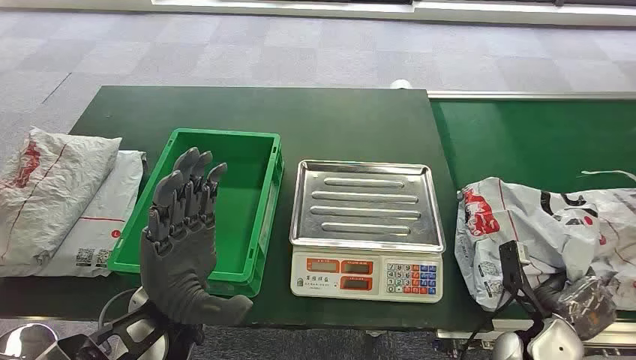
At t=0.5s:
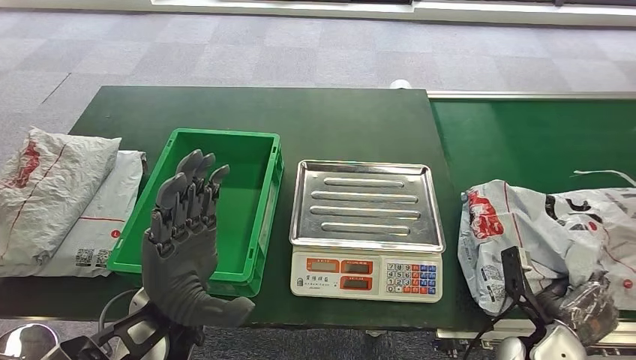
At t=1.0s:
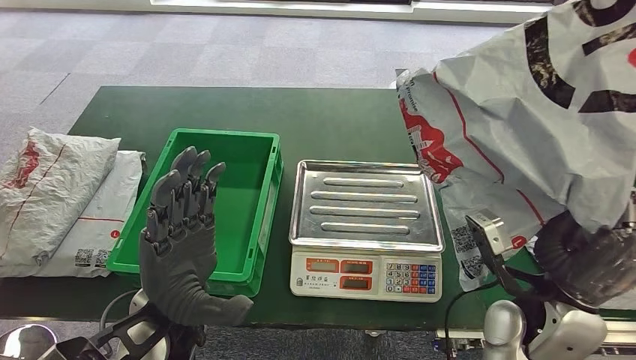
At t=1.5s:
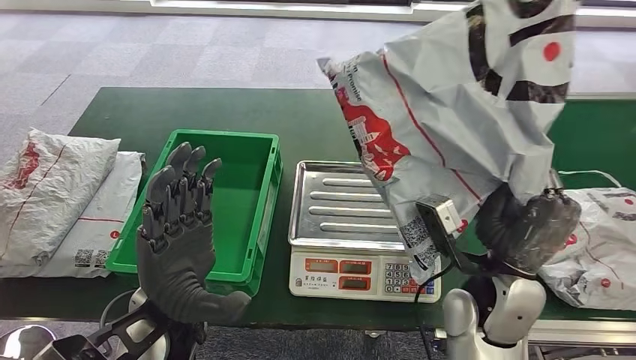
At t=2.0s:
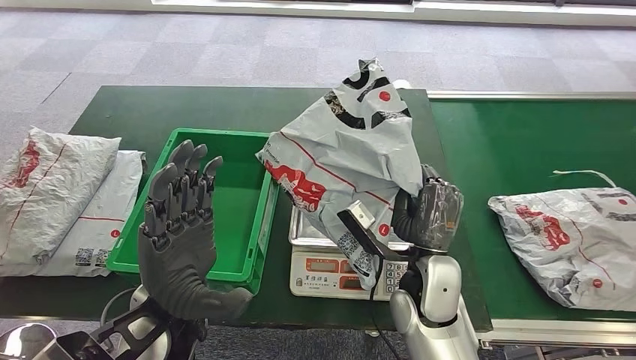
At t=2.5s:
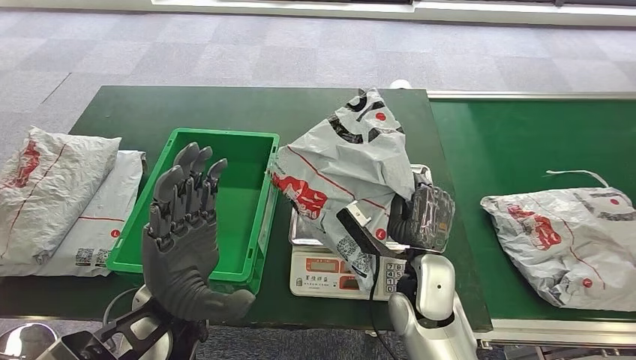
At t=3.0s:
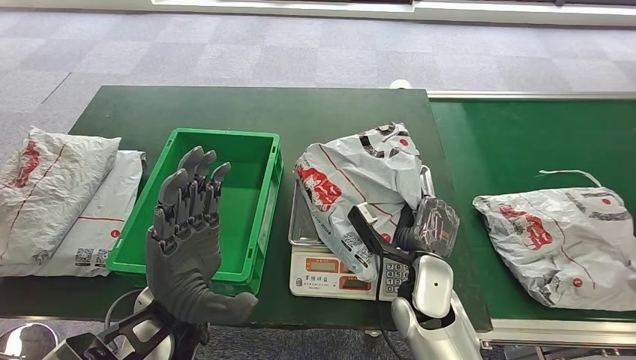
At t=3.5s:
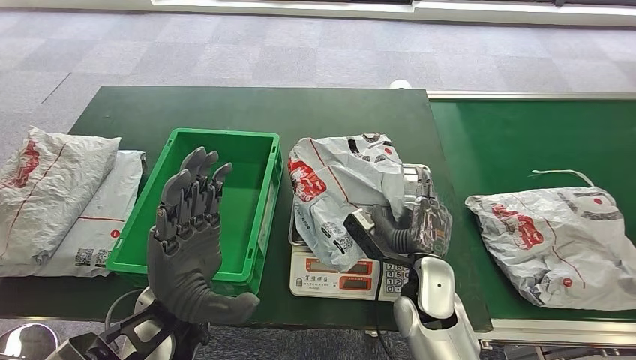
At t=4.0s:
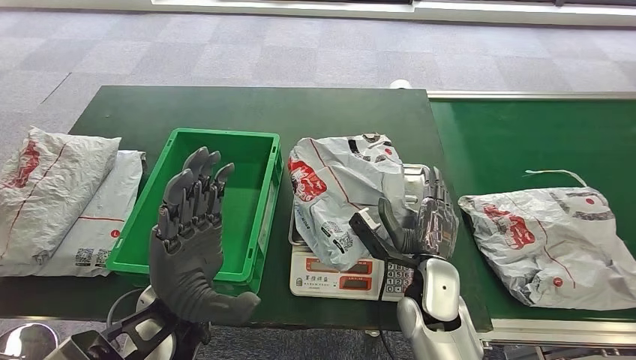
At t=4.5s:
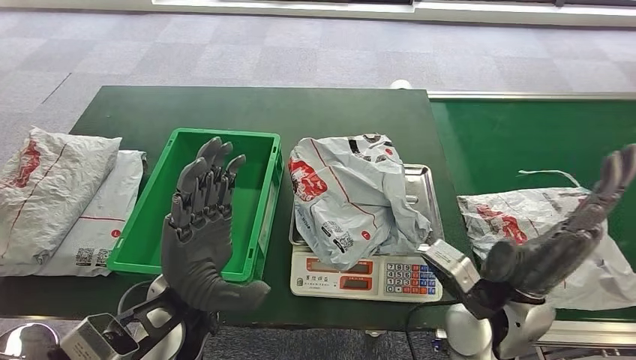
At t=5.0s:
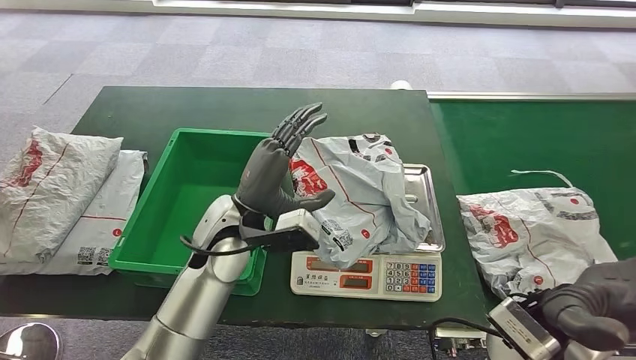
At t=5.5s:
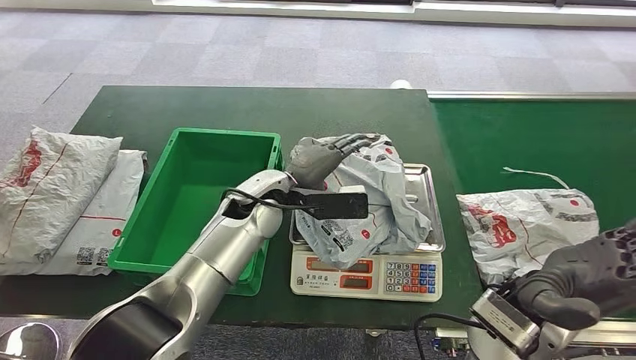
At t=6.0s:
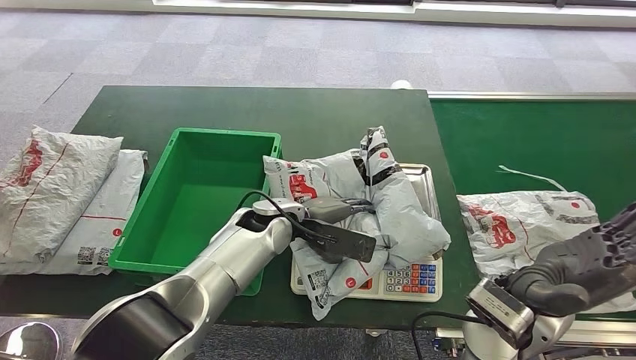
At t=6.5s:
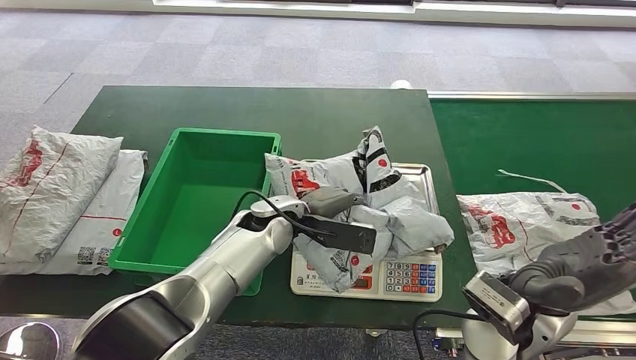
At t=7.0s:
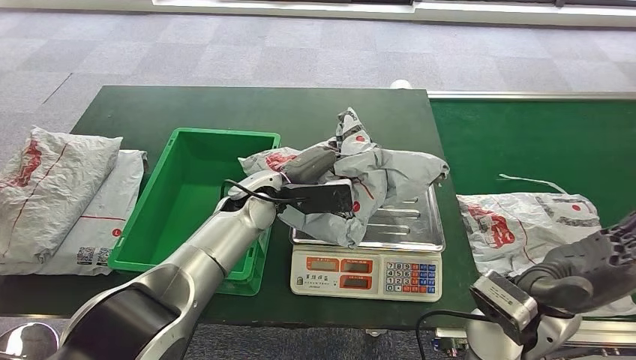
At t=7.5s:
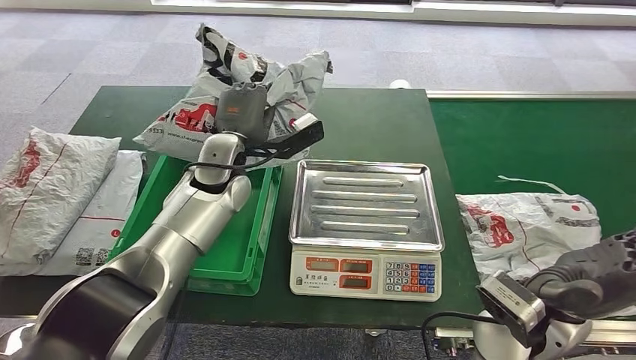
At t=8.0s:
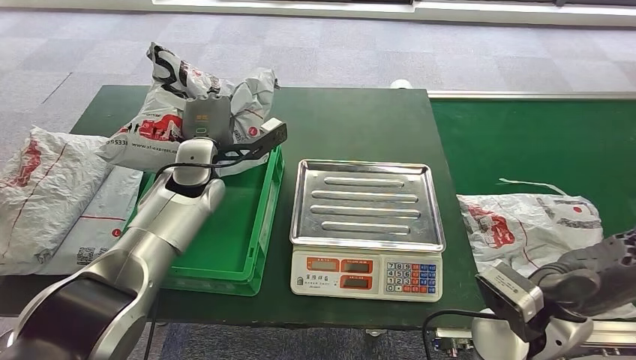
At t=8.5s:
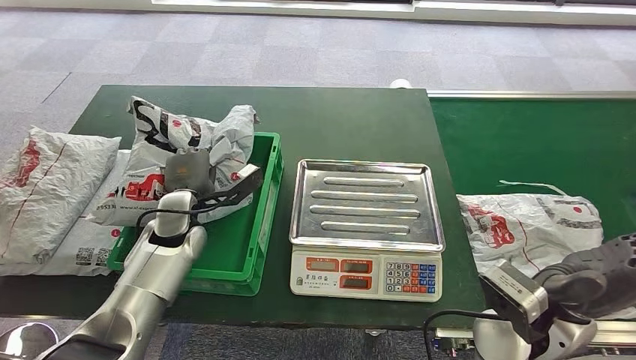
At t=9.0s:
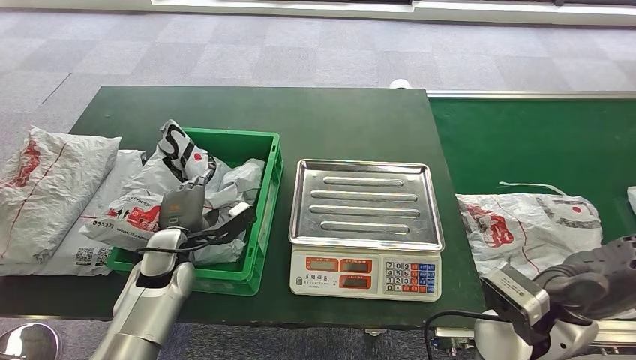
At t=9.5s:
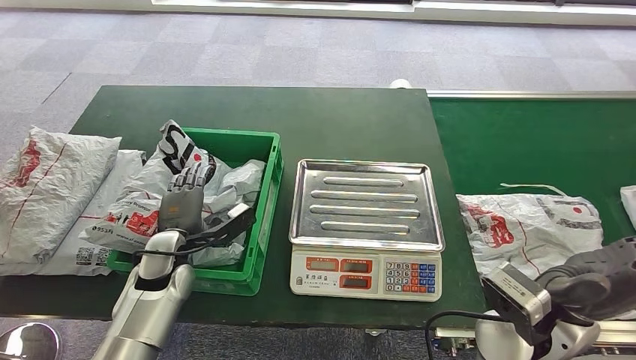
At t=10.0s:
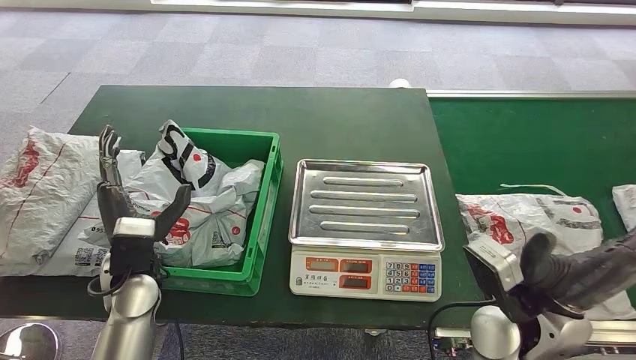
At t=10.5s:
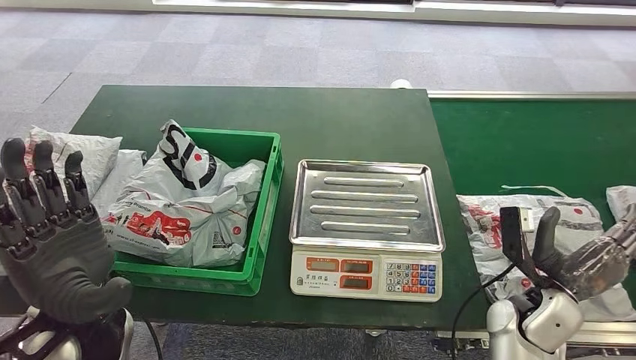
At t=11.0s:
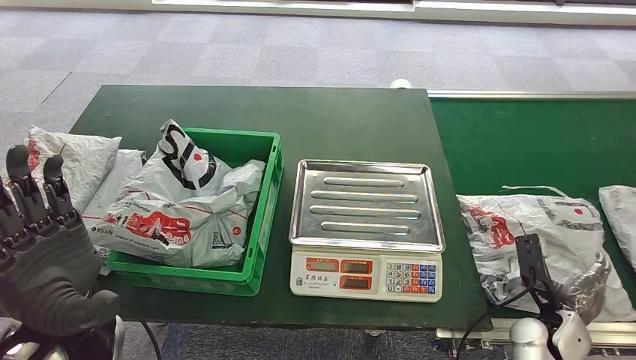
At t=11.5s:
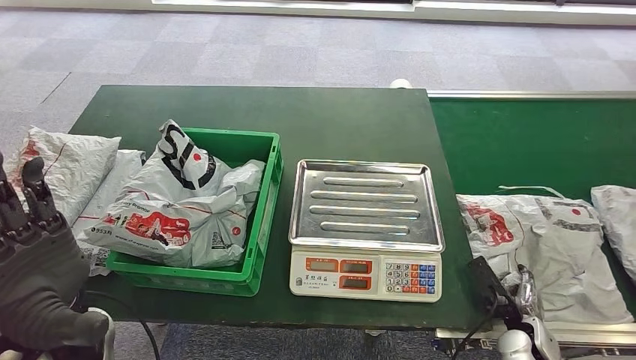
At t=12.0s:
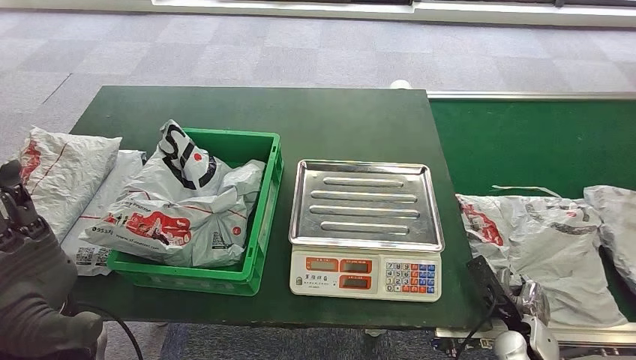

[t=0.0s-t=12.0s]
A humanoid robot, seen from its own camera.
Step, t=0.0s to t=2.0s: Take the parcel off the conveyor belt.
Step, t=2.5s to t=4.5s: Place the parcel onto the inbound machine.
Step, t=6.5s to t=7.5s: Pick up the parcel from the inbound machine.
Step, t=8.0s to t=10.0s: Put the parcel inside the courier box.

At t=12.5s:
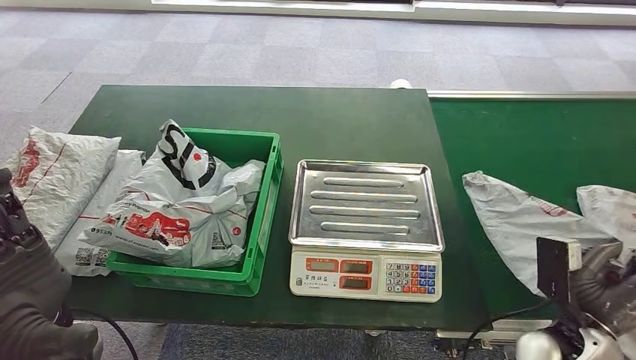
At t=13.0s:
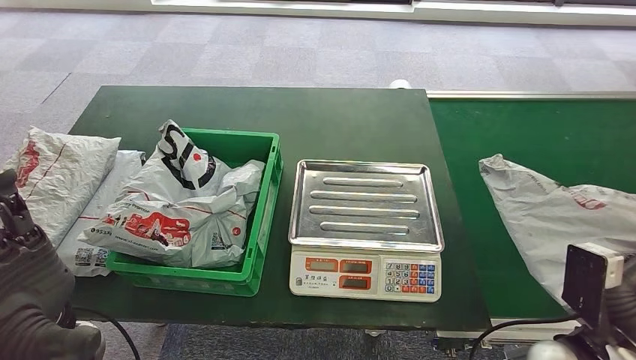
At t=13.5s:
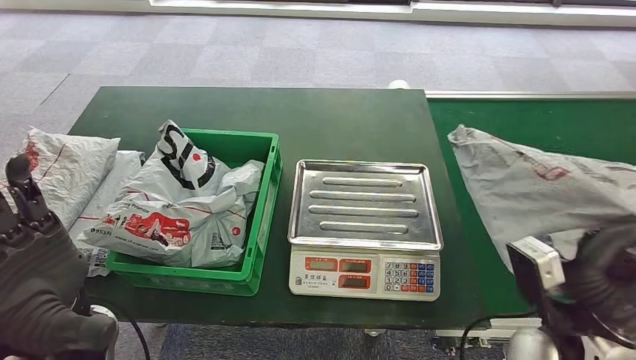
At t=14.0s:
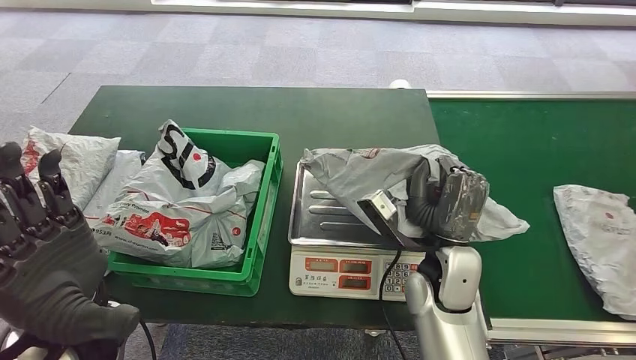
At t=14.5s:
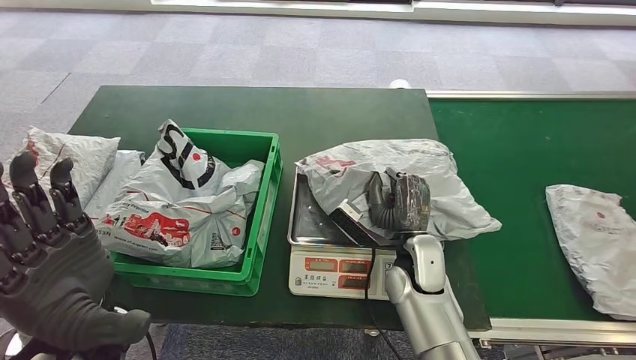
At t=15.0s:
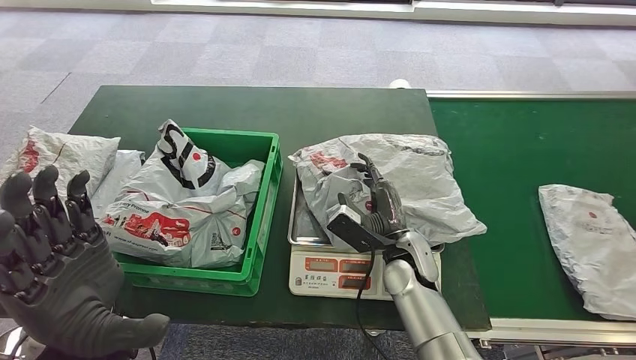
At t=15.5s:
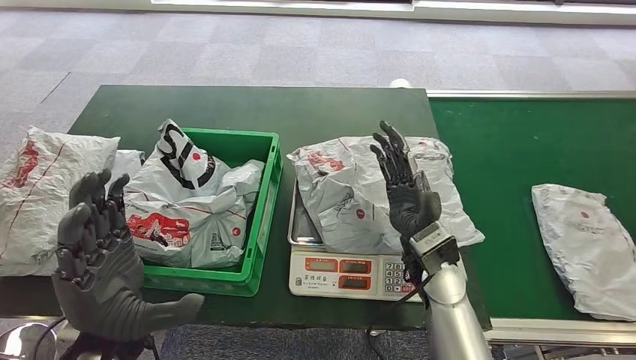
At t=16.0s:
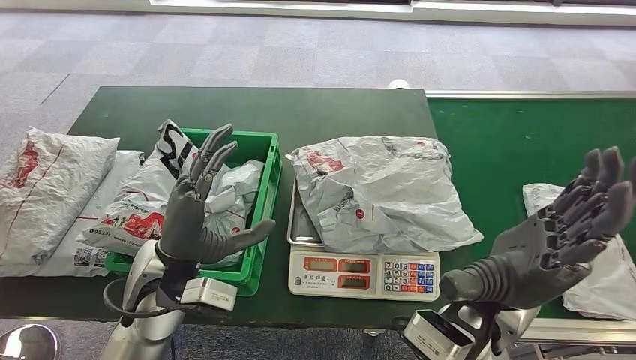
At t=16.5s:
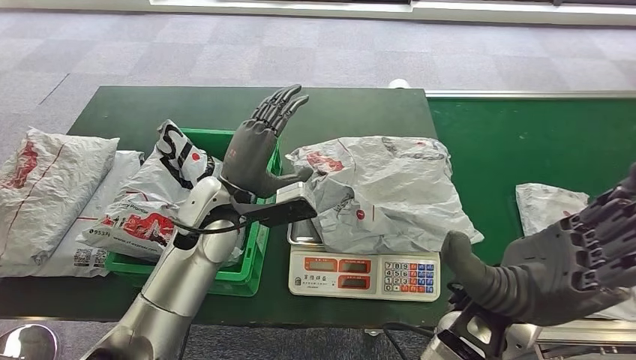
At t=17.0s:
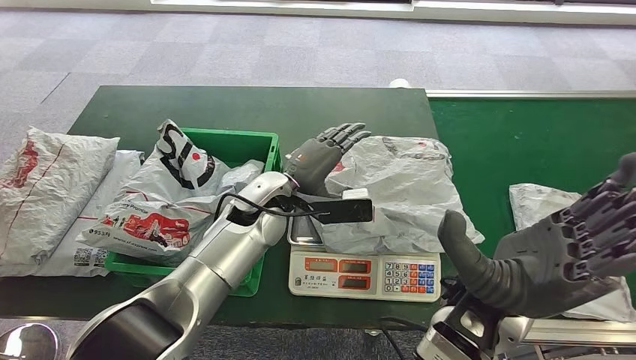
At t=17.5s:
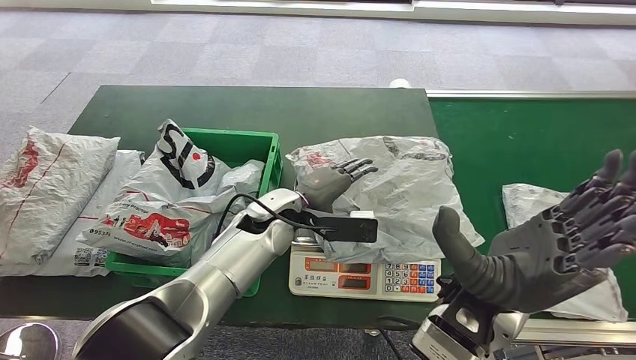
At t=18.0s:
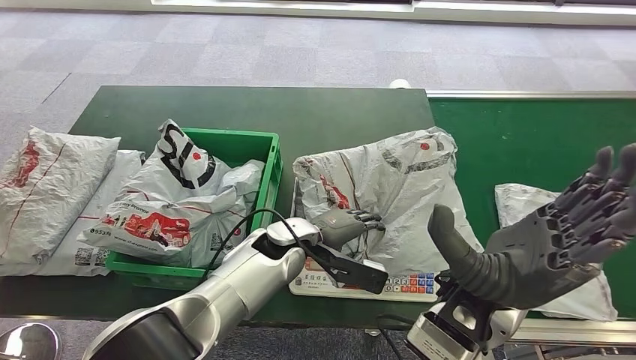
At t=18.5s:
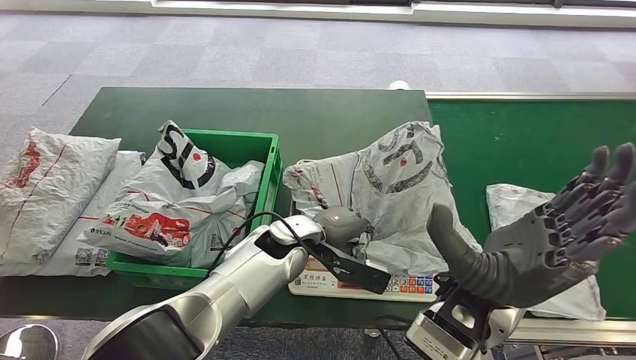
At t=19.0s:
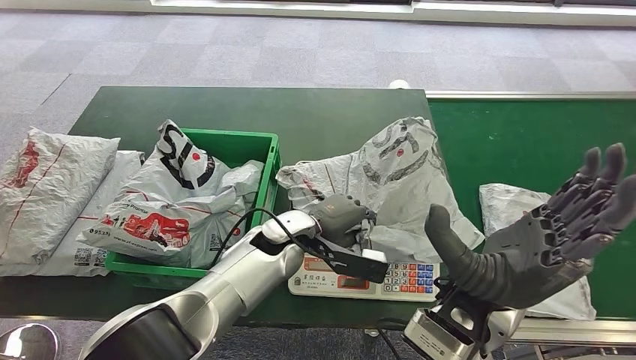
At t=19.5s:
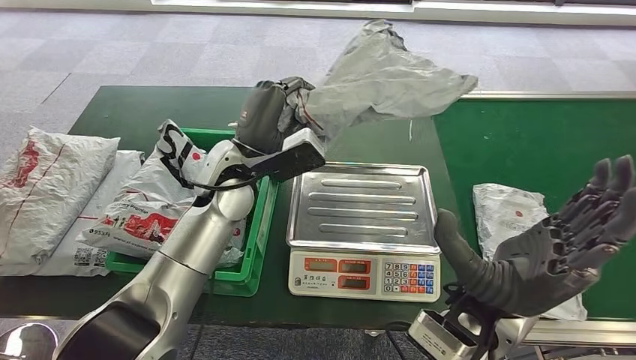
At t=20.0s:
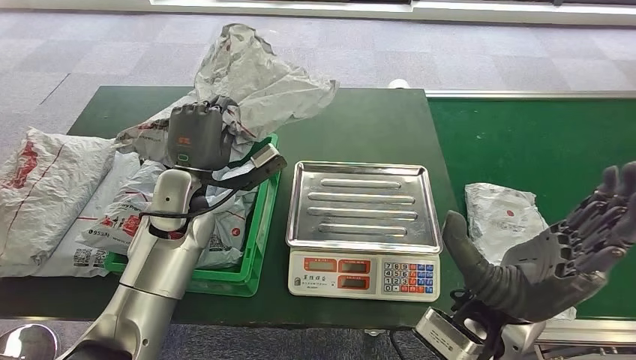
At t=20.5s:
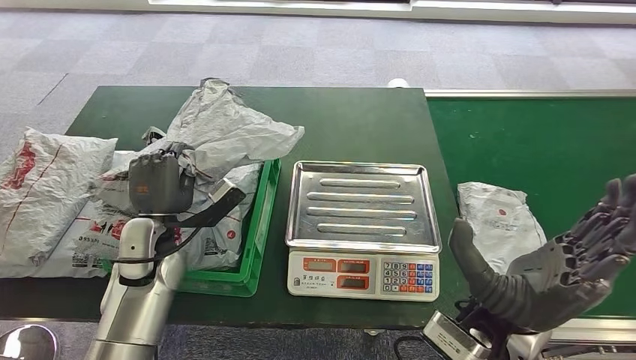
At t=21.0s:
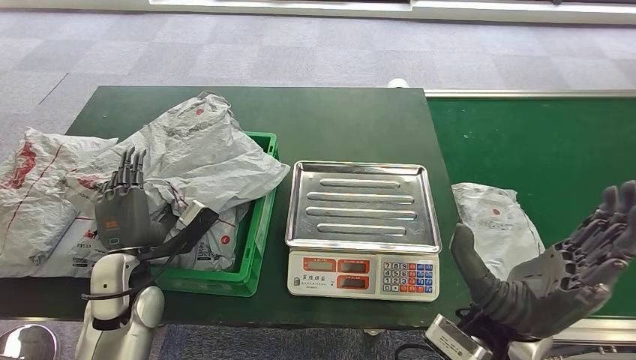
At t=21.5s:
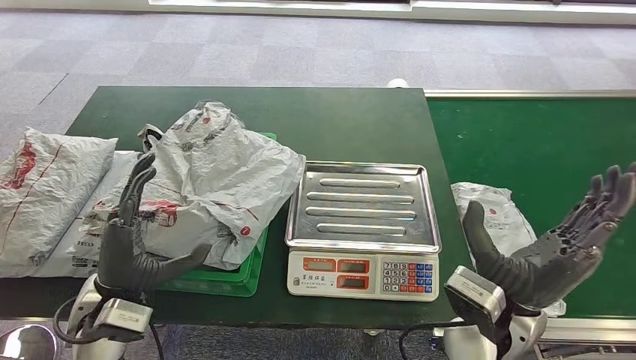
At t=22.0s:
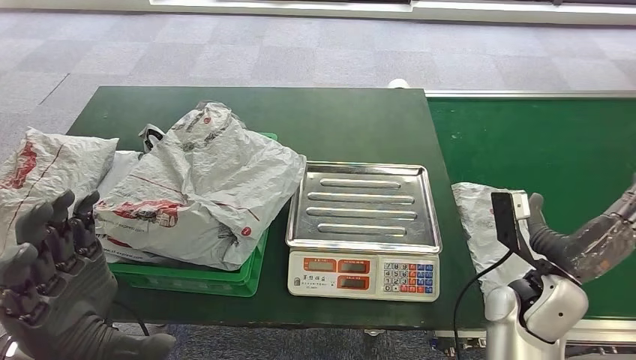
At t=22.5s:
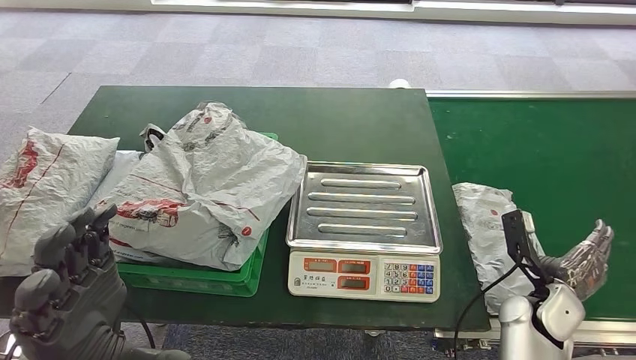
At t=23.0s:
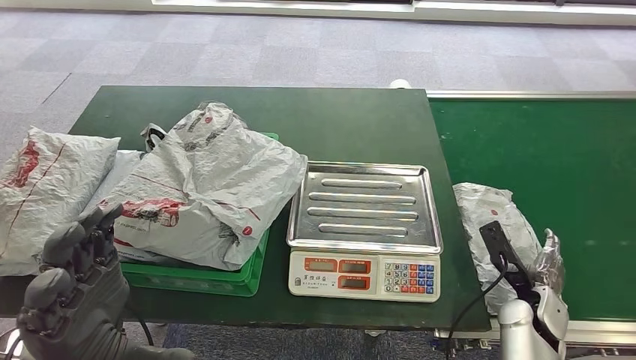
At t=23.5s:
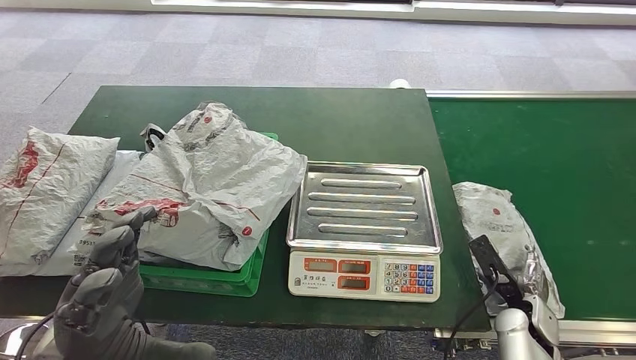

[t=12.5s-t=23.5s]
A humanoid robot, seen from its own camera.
Step, t=12.5s to t=13.5s: Pick up the parcel from the conveyor belt.
Step, t=14.0s to t=15.0s: Place the parcel onto the inbound machine.
Step, t=17.5s to t=19.5s: Pick up the parcel from the inbound machine.
Step, t=20.0s to t=21.5s: Place the parcel into the delivery box.
t=21.5s to t=23.5s: The left hand goes some 5 cm upward; the right hand heads downward and to the right, covering approximately 25 cm.
